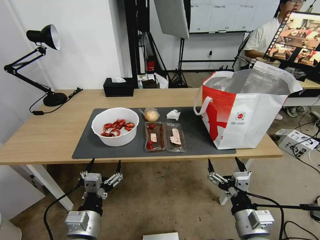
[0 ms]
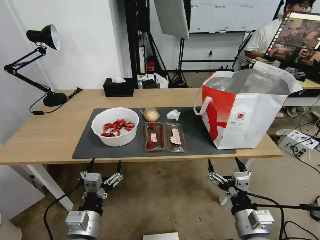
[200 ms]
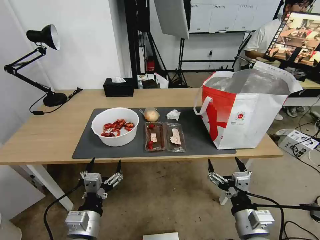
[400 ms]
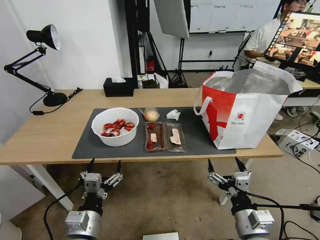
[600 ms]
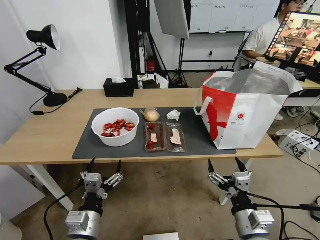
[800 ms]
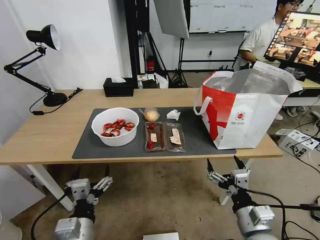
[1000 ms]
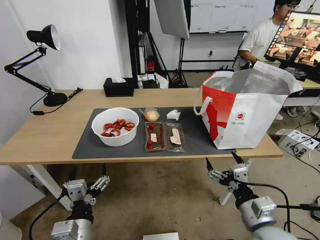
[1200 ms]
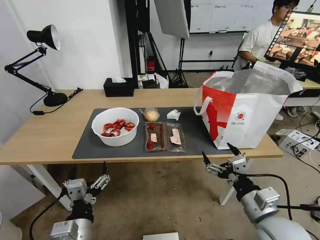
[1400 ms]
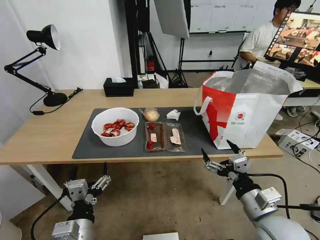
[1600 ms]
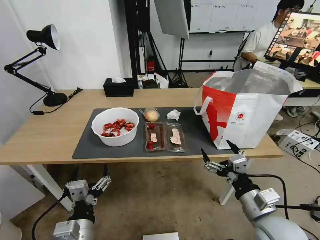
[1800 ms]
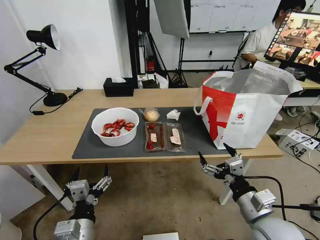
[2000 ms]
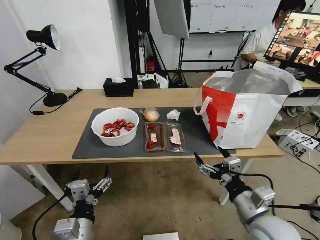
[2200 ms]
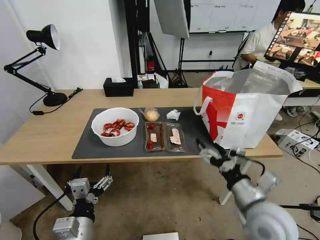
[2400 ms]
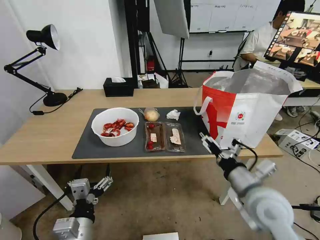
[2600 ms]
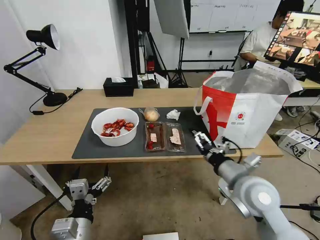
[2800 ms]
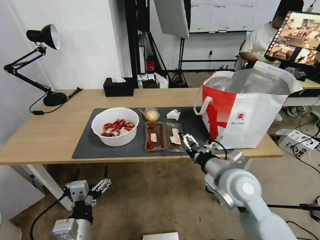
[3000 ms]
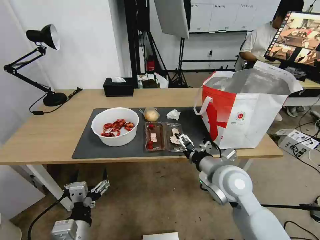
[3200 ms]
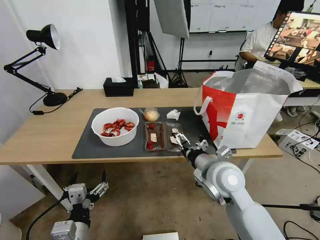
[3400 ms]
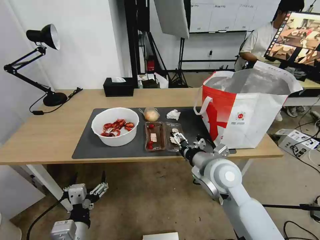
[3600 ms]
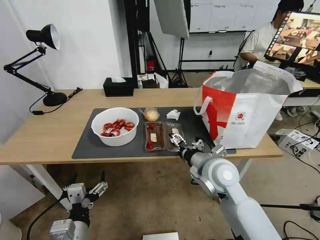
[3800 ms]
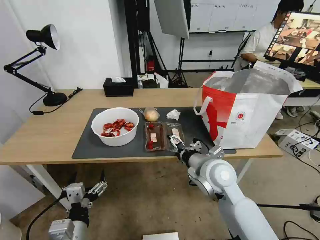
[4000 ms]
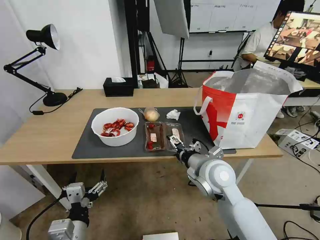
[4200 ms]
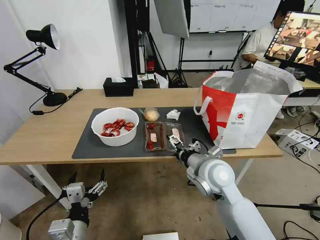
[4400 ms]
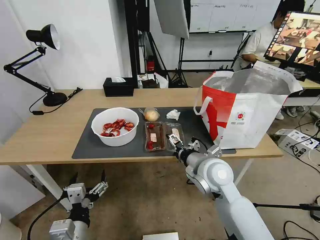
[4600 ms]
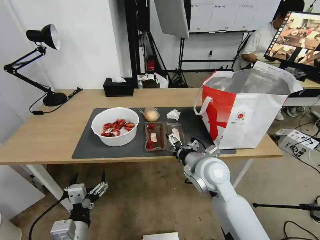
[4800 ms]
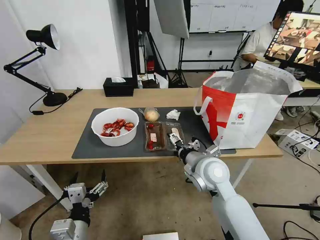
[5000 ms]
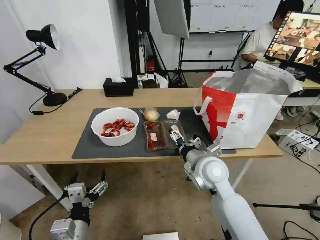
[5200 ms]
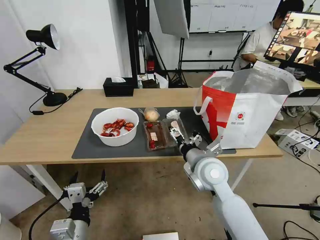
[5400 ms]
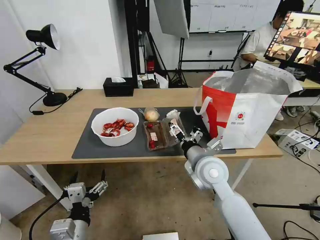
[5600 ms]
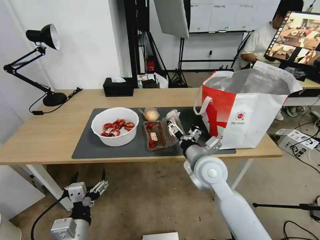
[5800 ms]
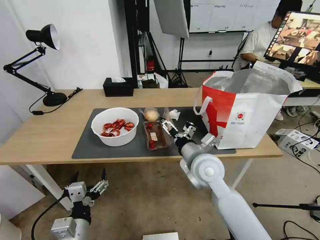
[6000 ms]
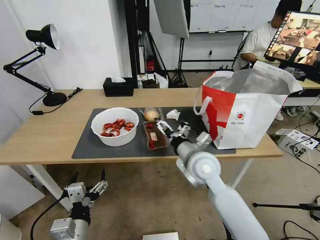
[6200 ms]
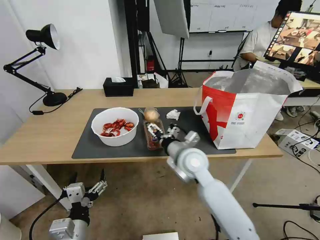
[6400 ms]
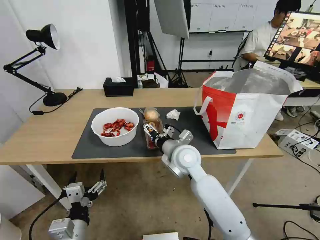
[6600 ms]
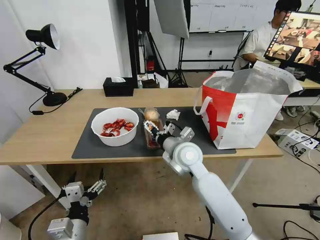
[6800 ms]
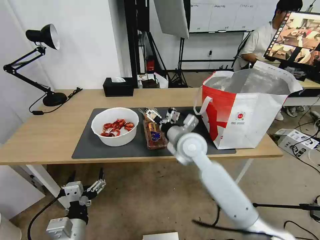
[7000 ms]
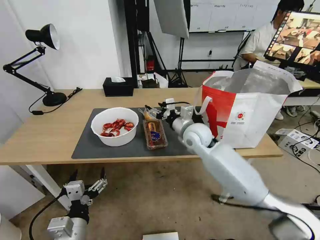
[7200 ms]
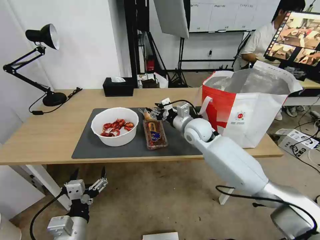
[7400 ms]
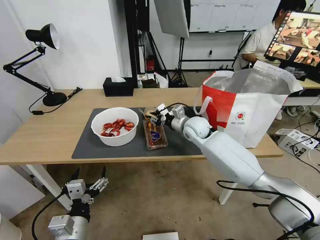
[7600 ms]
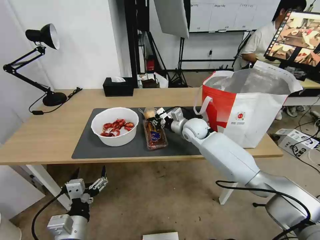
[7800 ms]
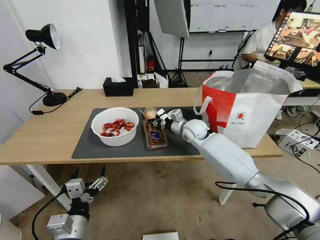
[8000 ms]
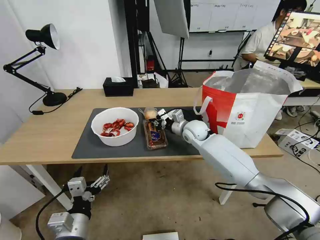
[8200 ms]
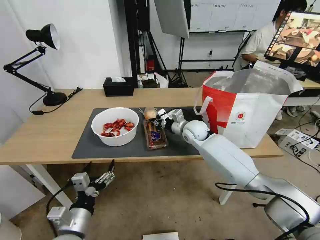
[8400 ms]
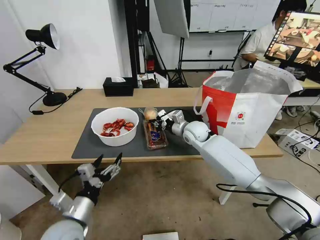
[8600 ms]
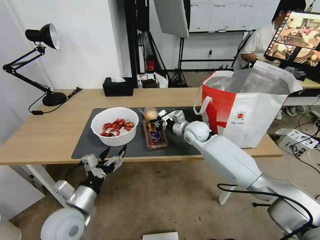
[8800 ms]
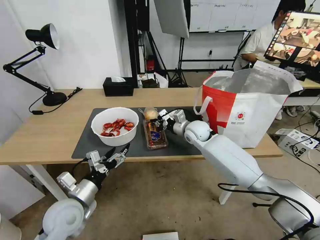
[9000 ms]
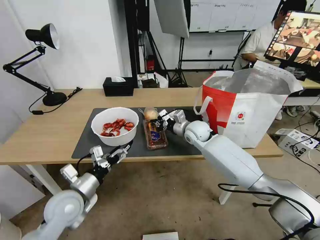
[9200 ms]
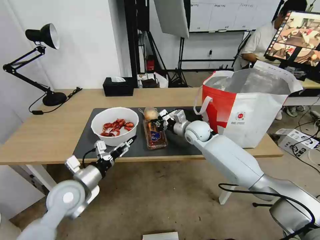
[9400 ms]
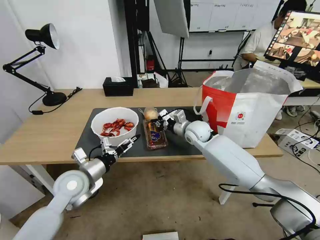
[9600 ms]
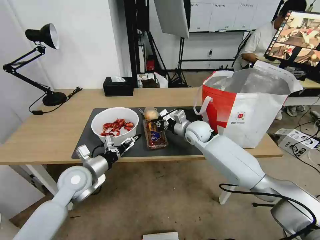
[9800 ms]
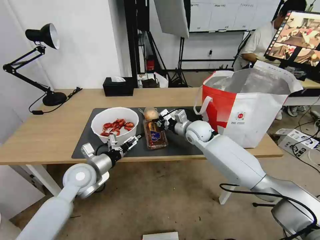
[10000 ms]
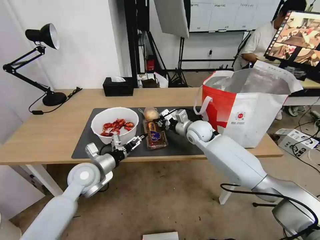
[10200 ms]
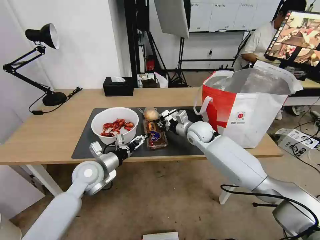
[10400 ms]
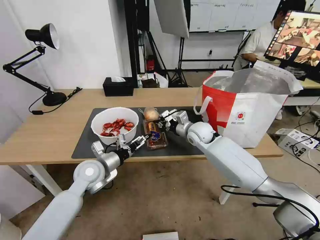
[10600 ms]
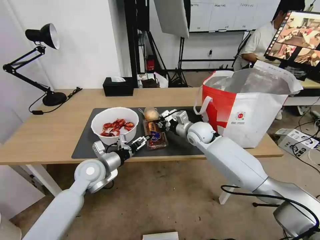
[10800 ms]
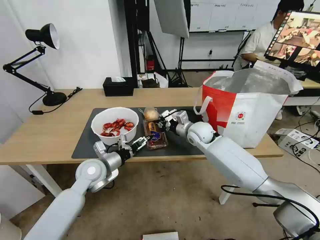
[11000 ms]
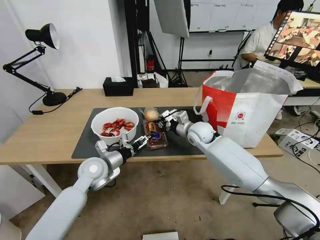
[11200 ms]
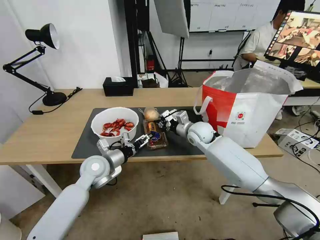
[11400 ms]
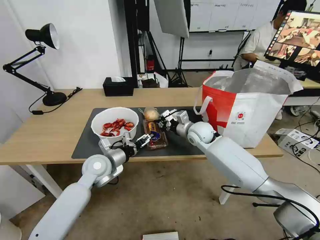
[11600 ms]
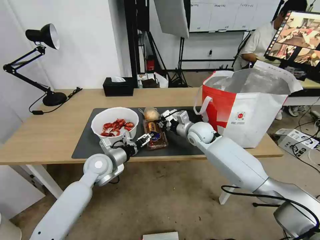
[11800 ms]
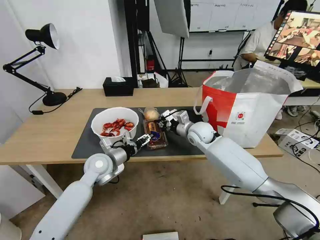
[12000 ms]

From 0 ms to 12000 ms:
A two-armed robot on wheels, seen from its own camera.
Task of the whole recording: Pick up the trash from the table and place it into the takeout bag.
From 1600 ms to 3000 ms: The right gripper heads forward and to the left, covering some 10 cm.
From 3000 ms to 4400 ms: The right gripper heads to the left, covering roughly 5 cm.
From 6000 ms to 7600 ms: The right gripper shifts roughly 20 cm forward, and closes up.
From 7600 ms to 9000 ms: The left gripper is displaced forward by some 10 cm.
From 9000 ms to 10400 ms: The left gripper shifts about 10 cm forward.
From 10400 ms to 12000 ms: The grippers stay close to where they were, moving slightly.

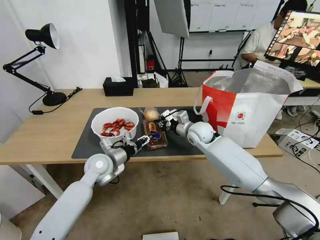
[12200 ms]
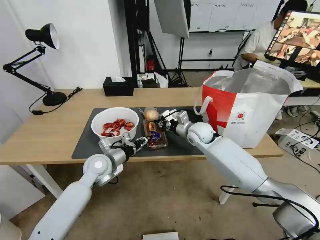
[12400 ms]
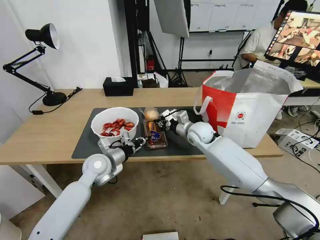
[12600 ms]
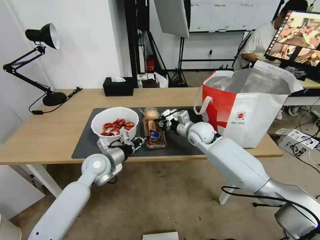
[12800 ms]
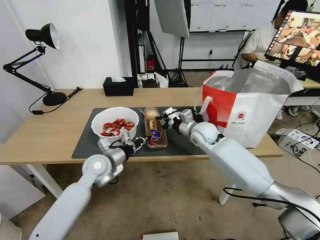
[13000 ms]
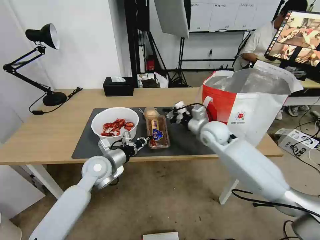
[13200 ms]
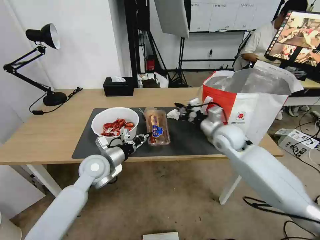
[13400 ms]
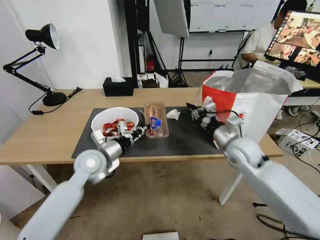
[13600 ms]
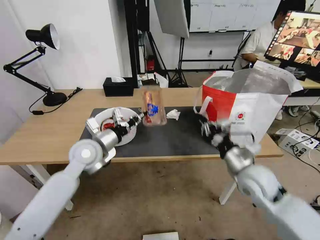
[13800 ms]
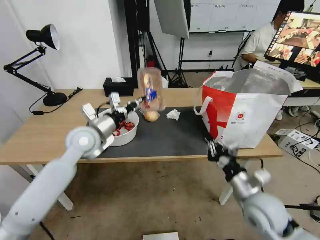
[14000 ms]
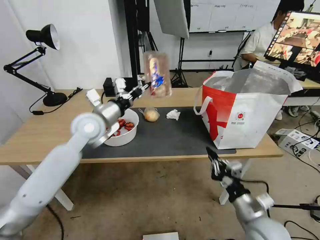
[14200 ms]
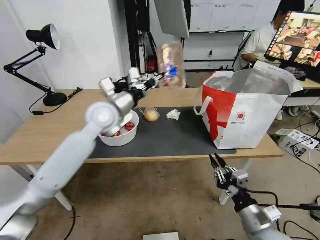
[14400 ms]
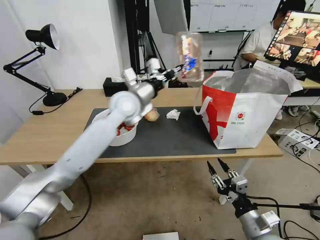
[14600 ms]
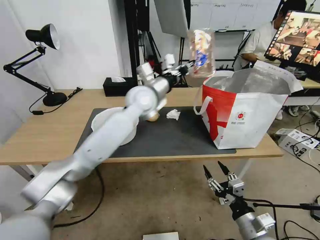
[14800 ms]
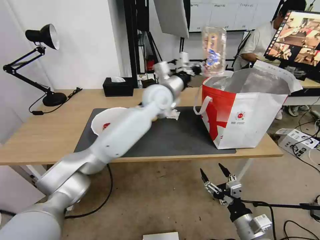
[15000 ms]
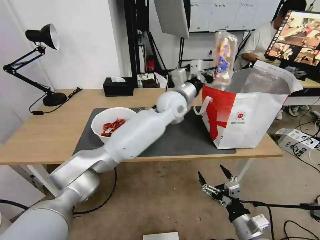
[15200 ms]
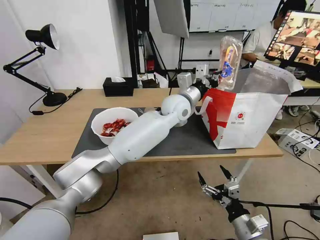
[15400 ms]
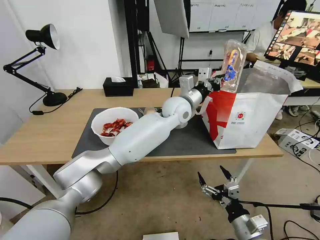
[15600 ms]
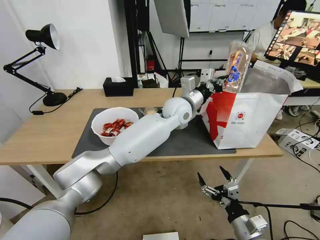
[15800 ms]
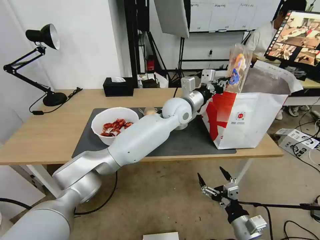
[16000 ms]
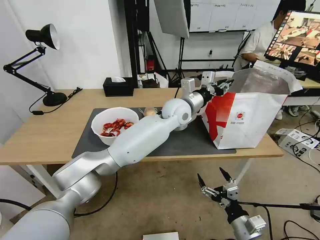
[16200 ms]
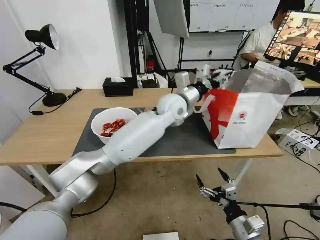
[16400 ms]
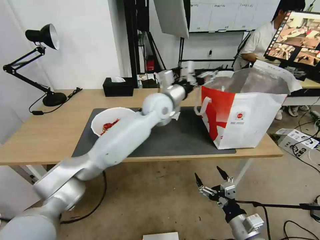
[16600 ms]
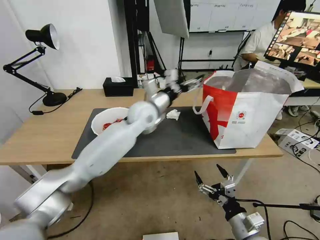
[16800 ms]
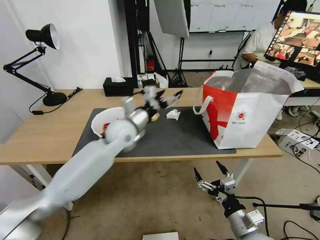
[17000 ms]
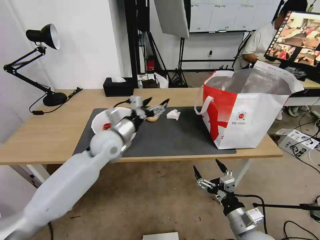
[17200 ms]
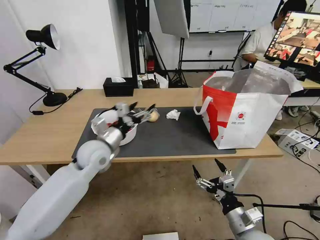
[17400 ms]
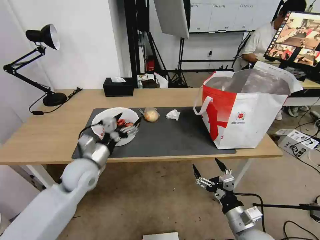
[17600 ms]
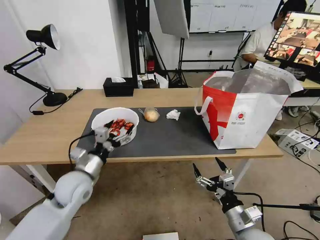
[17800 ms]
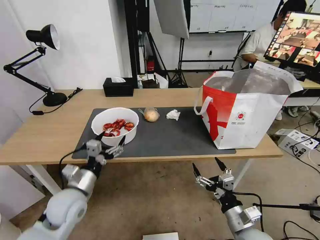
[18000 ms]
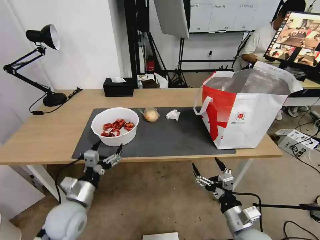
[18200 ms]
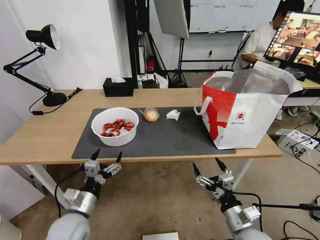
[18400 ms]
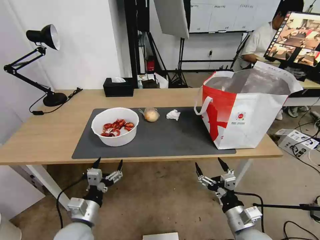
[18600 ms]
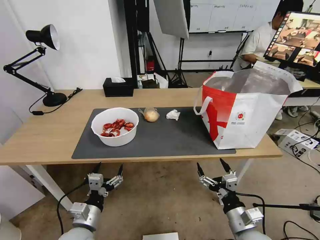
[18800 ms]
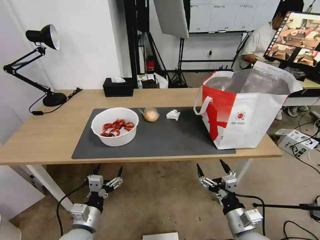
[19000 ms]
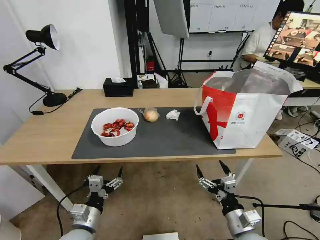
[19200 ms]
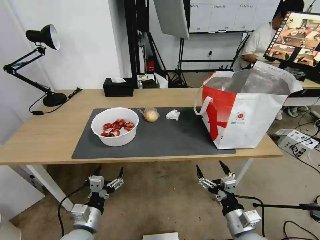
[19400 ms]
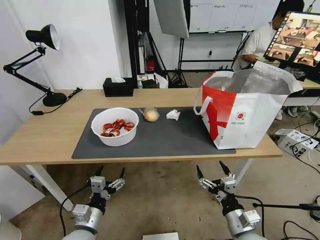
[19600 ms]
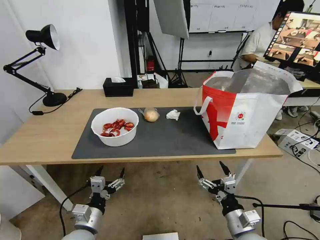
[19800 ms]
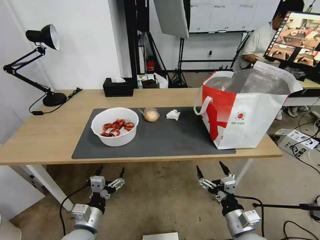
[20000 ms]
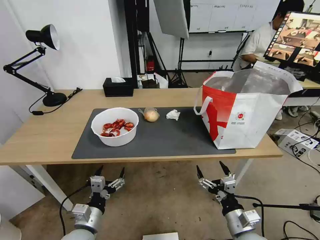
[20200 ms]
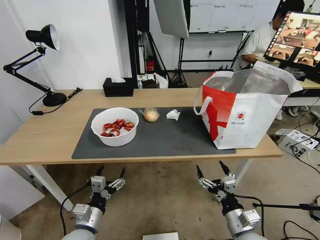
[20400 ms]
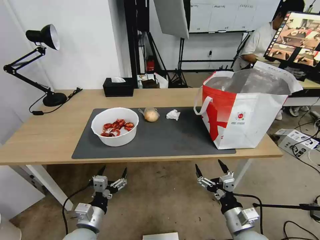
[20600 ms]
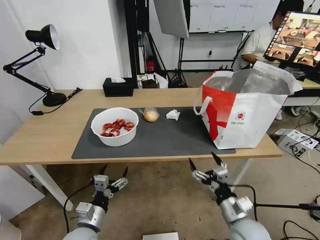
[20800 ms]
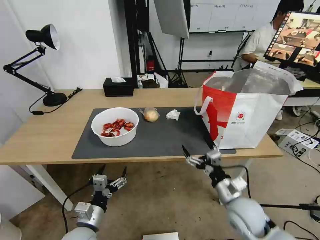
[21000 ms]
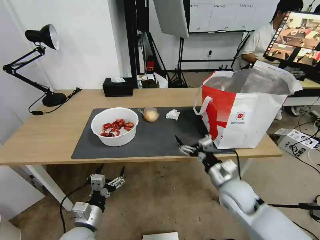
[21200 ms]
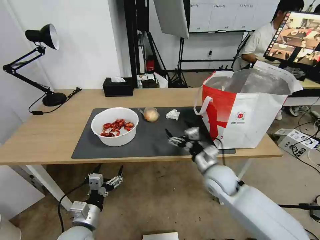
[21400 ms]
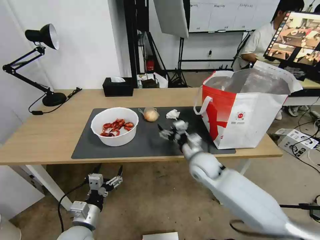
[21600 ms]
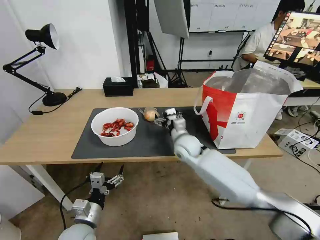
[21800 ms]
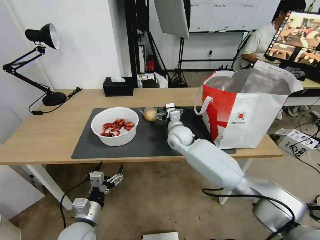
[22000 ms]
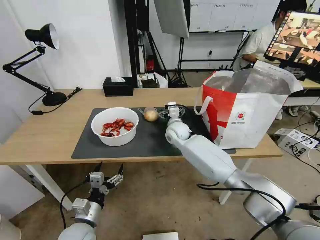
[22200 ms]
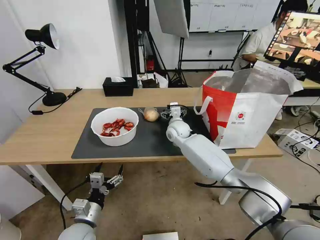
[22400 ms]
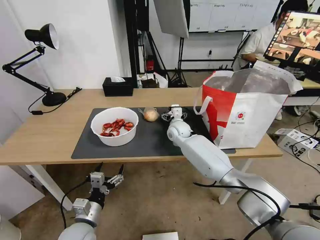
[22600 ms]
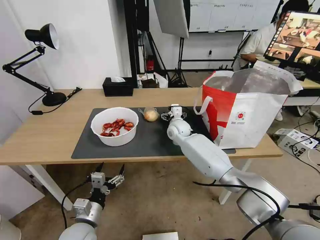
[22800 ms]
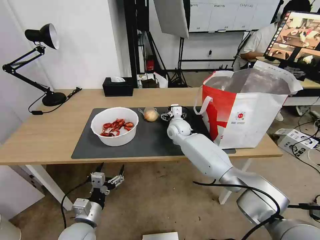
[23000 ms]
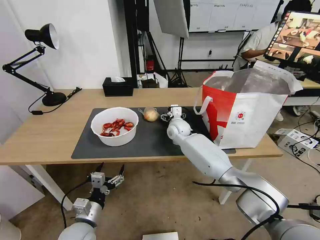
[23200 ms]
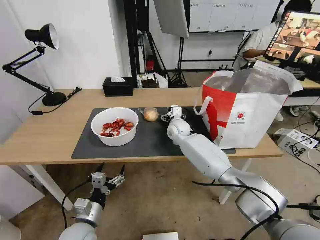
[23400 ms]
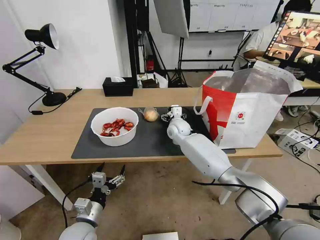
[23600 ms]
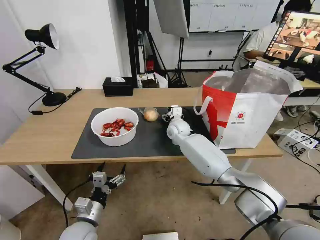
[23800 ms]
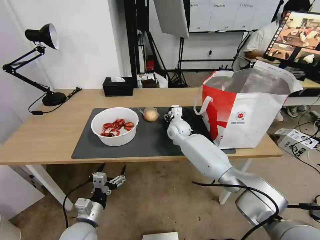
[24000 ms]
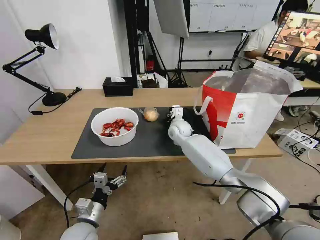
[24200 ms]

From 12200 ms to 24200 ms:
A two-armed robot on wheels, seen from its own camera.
Task of the whole recording: Pick up the trash from the table and place it into the takeout bag.
From 12200 ms to 13800 ms: The left gripper shifts approximately 10 cm upward, and closes its fingers. The right gripper goes some 25 cm backward and to the right.
From 13800 ms to 15200 ms: The right gripper is displaced backward and downward by roughly 20 cm, and opens up; the left gripper moves to the right and forward, some 30 cm.
From 15200 ms to 16600 ms: The left gripper opens.
From 16600 ms to 18200 ms: The left gripper shifts some 40 cm backward, to the left and downward.
From 18200 ms to 19800 ms: The left gripper shifts some 10 cm downward and backward.
From 19800 ms to 21200 ms: The right gripper moves forward and upward, roughly 15 cm.
From 21200 ms to 22600 ms: The right gripper goes some 30 cm forward and to the left.
From 22600 ms to 24200 ms: The right gripper closes up.
